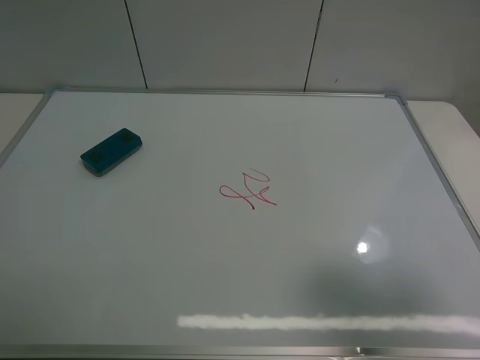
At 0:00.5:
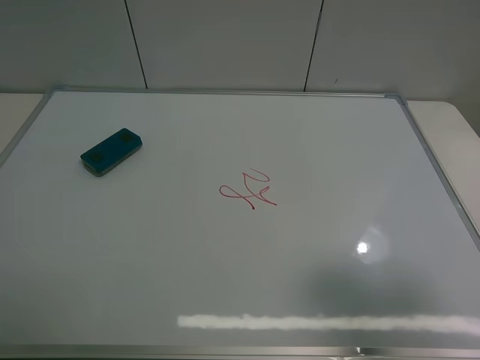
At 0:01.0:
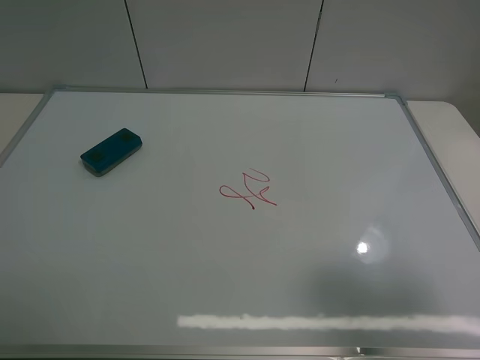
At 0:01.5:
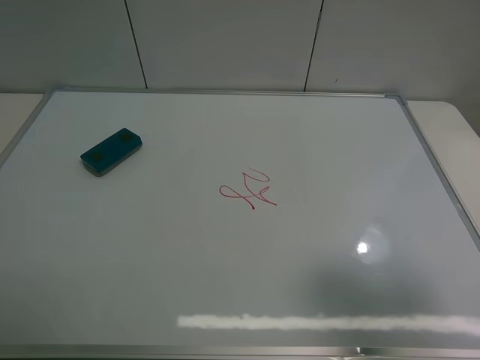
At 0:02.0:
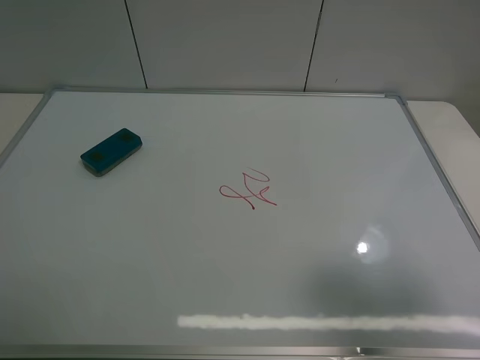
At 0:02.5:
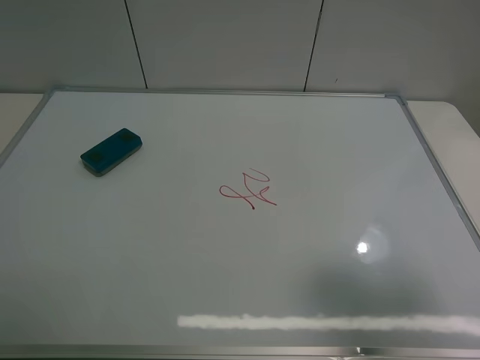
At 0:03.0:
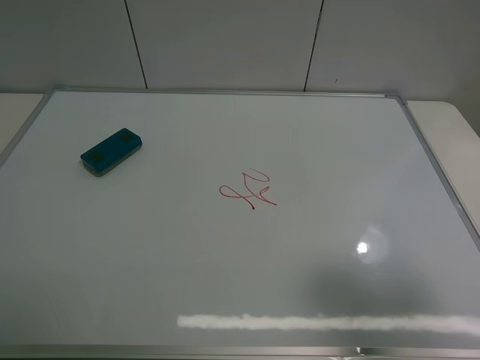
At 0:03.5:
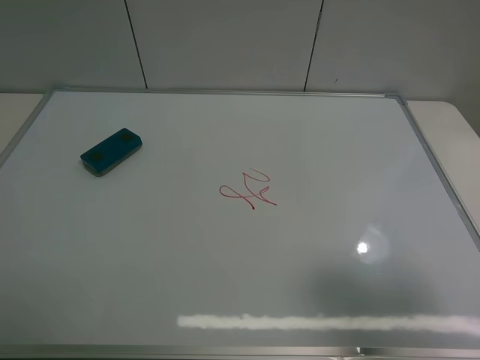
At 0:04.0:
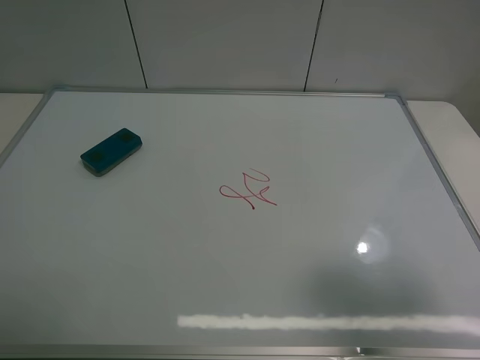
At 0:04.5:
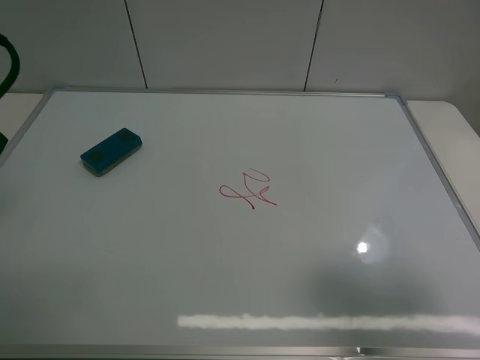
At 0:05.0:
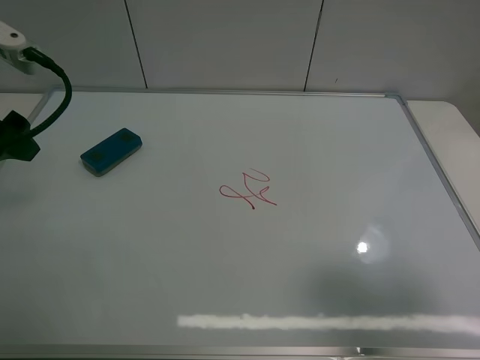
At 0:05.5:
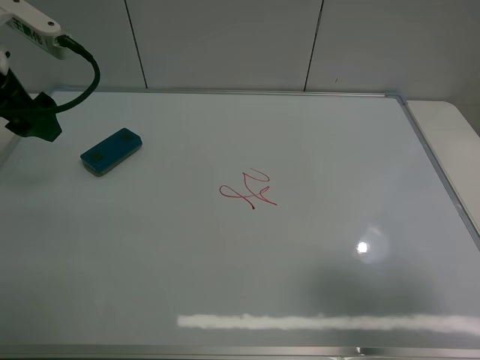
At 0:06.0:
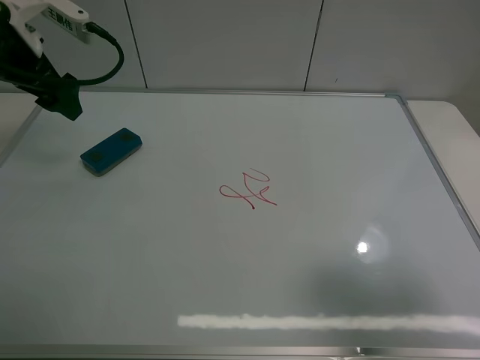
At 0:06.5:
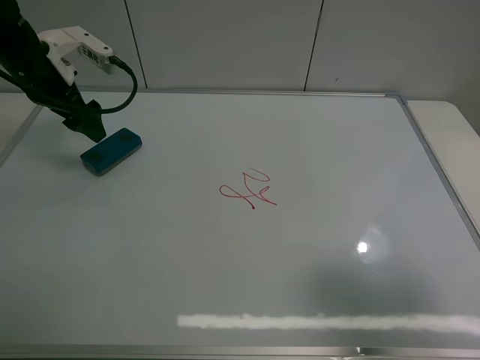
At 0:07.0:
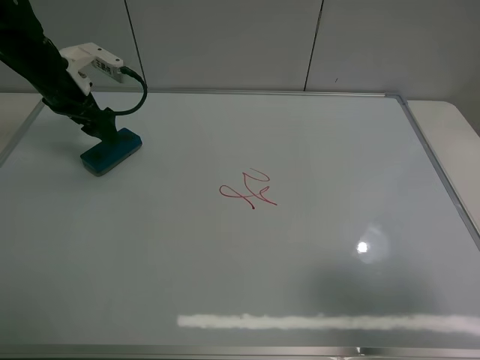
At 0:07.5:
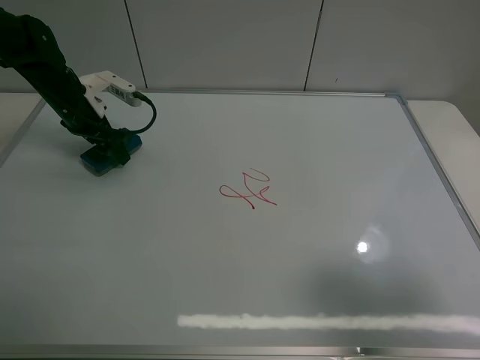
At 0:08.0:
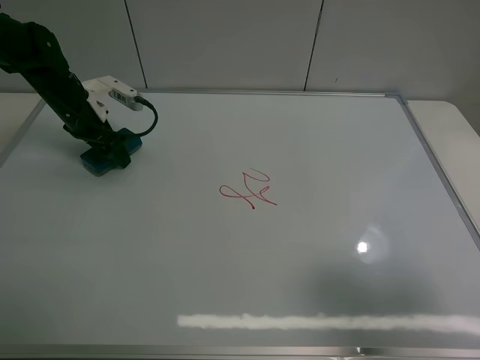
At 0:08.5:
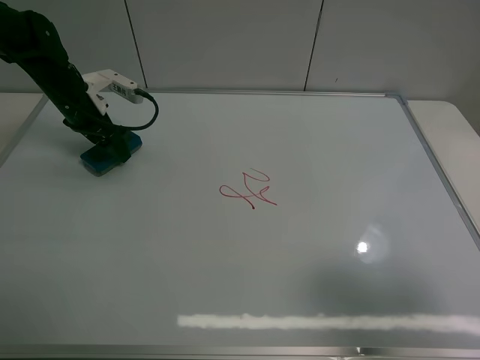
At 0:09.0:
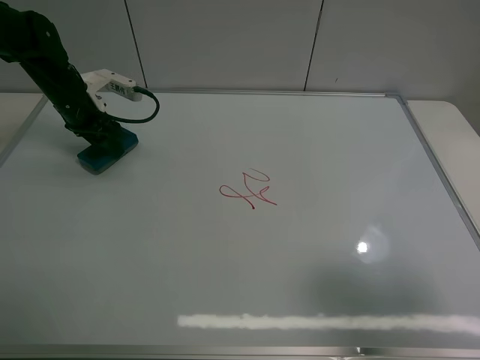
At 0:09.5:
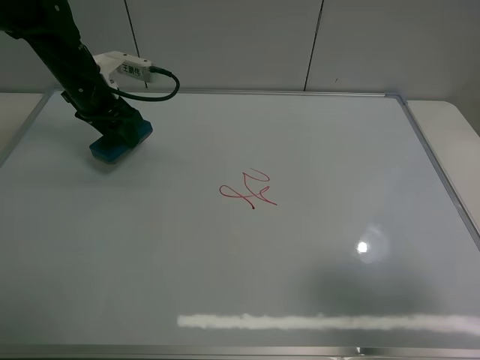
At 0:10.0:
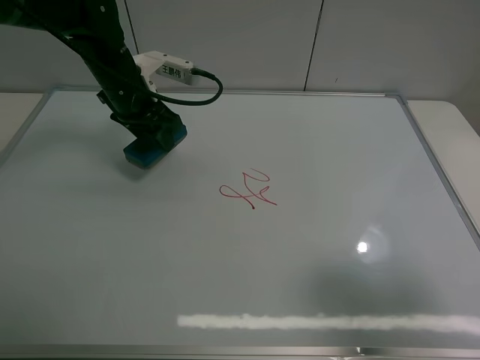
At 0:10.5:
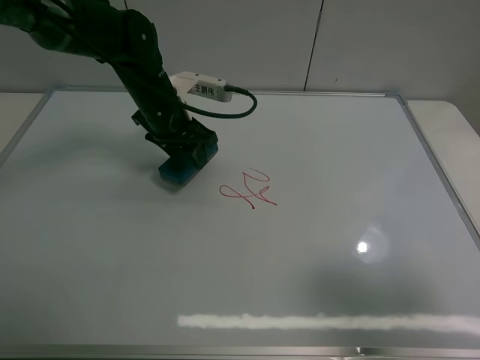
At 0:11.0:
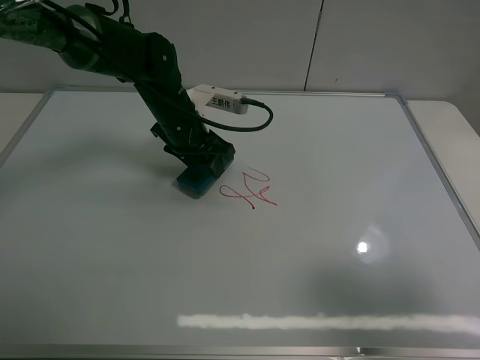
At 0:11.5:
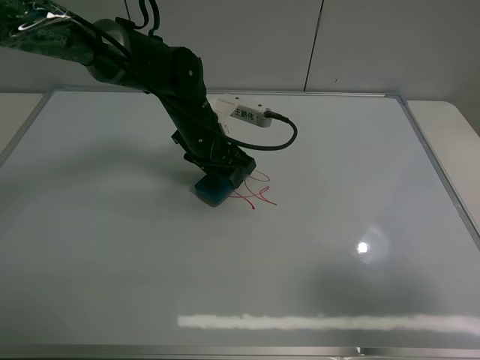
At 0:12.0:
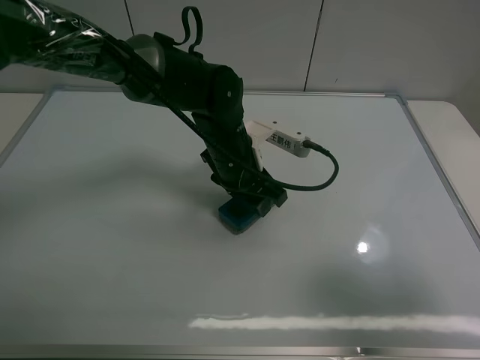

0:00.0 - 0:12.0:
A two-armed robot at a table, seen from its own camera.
Task of the whole recording: use the left claw to pick up the whiteboard eraser, wipe the notes on the whiteboard clean, and then put them back in place.
Step, 0:00.0 - 0:08.5: Grasp the eraser with the left gripper.
0:00.0 - 0:02.0: The two grippers keep their place.
0:04.0 - 0:06.0: The left gripper heads forward, covering roughly 25 cm.
0:06.0 - 0:08.0: The left gripper is displaced downward and forward by roughly 15 cm.
0:08.0 - 0:10.0: The left gripper goes approximately 15 cm to the right and upward, and closes.
0:10.0 - 0:12.0: The left gripper moves to the right, backward and downward, some 20 cm.

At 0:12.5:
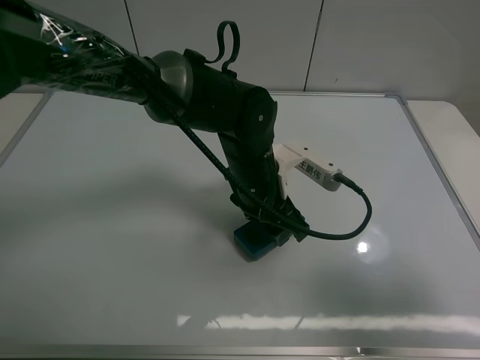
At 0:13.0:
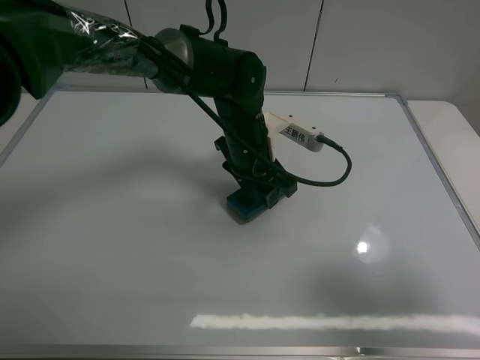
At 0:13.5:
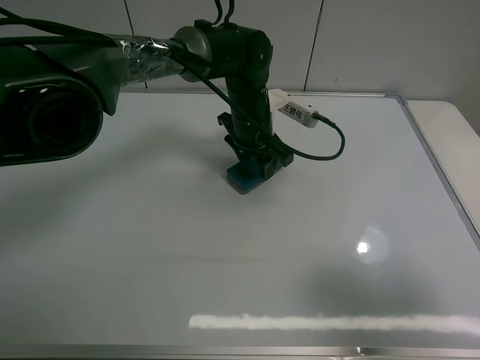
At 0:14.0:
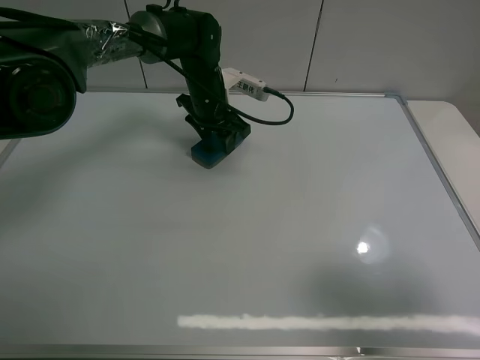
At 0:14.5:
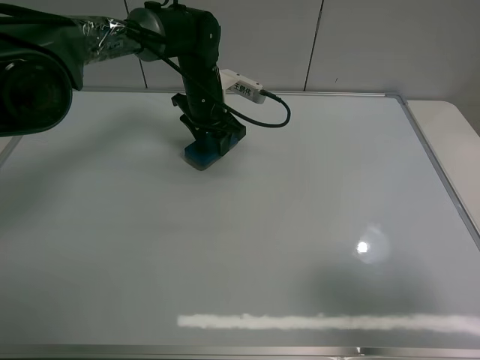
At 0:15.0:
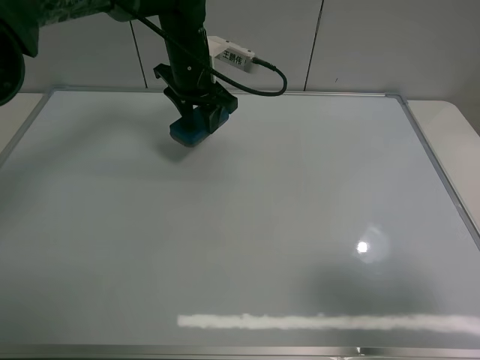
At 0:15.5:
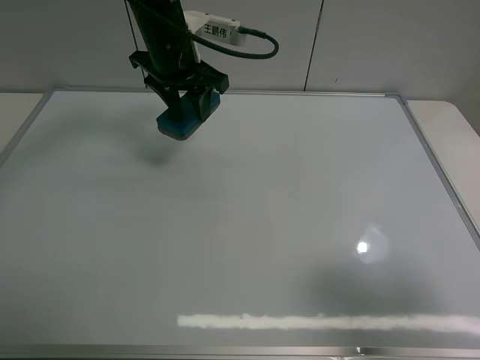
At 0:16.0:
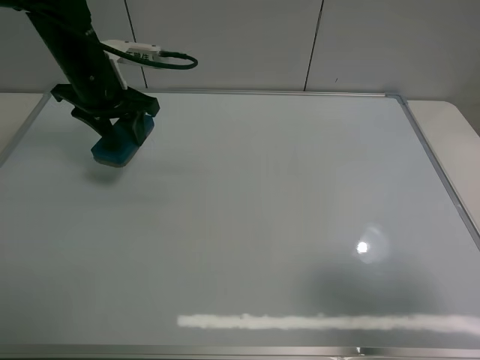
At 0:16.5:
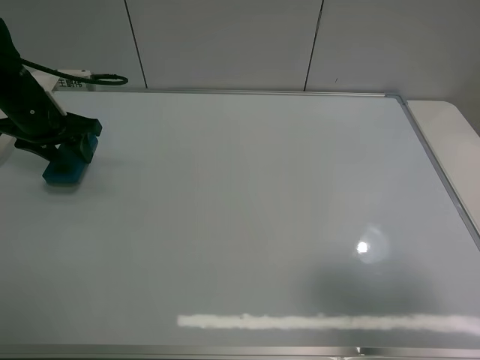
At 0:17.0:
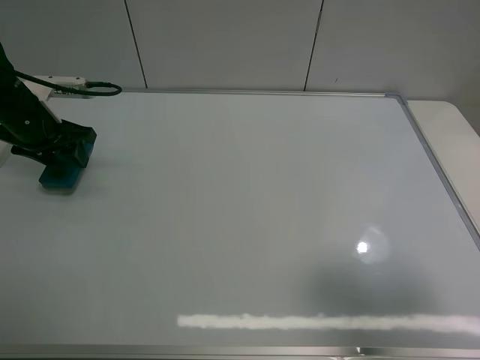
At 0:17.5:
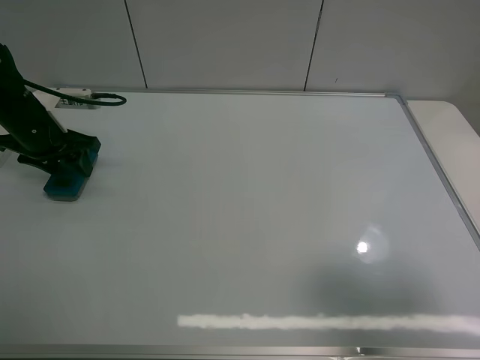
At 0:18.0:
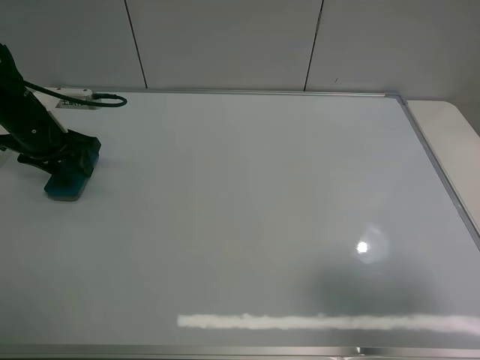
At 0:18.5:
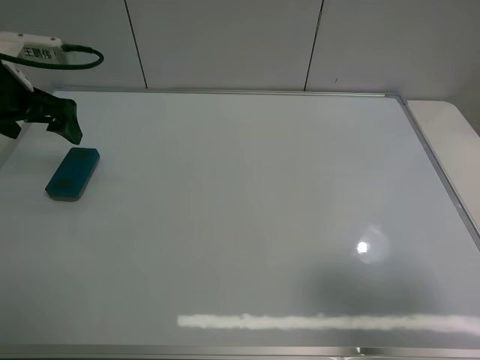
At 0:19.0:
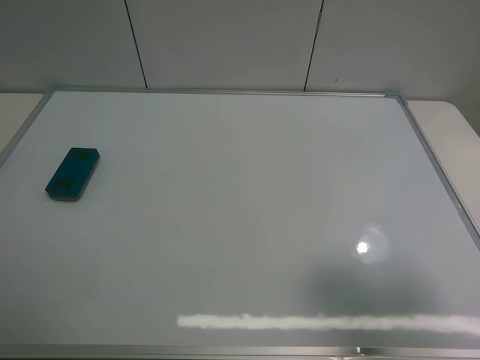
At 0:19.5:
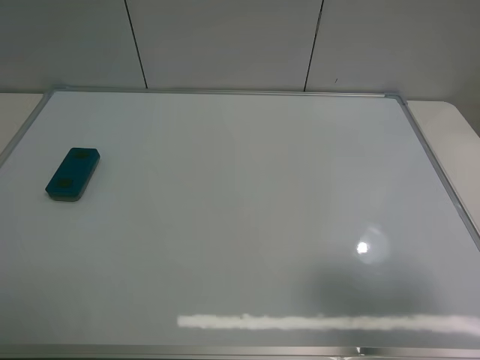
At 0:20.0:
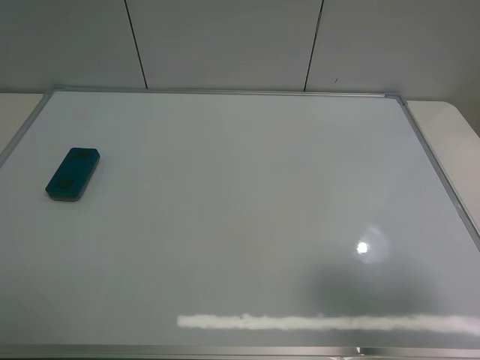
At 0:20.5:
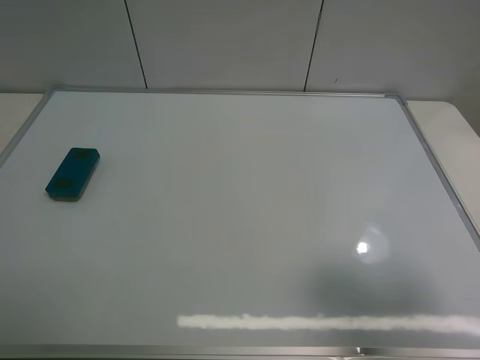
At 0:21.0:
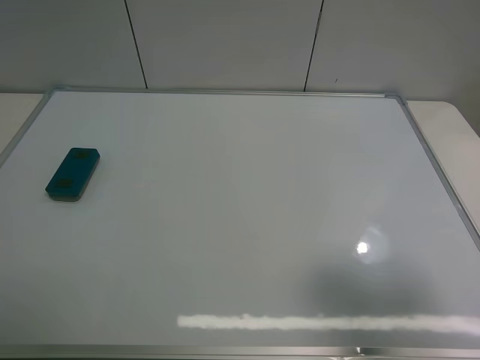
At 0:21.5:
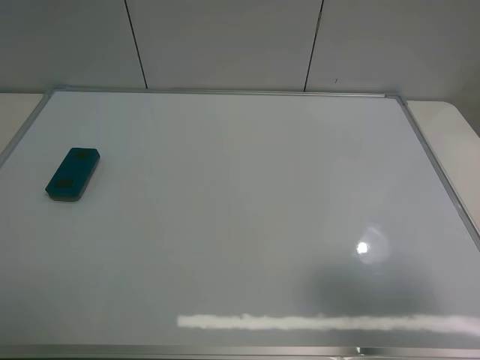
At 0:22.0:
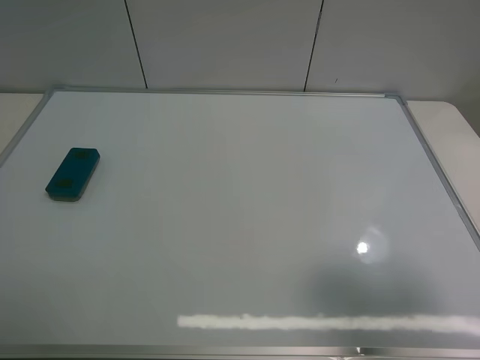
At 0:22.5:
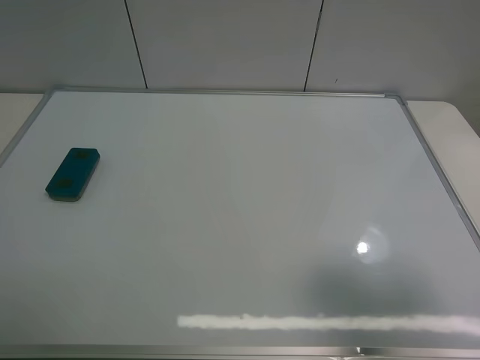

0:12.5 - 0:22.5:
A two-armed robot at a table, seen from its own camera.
Task of the whole recording: use the left claw to pick up the whiteboard eraser, wipe the notes on the whiteboard clean, and then put them back in place.
Step, 0:12.5 - 0:14.5: Grasp the eraser and wipe the blackboard with the left gripper.
Step, 0:15.0 - 0:18.0: Place the eraser with the left gripper.
0:12.5 - 0:14.5: The left gripper heads forward and to the left, covering approximately 20 cm.
0:14.5 - 0:16.5: The left gripper travels to the left by approximately 25 cm.
0:16.5 - 0:18.5: The left gripper moves upward, roughly 5 cm, and opens its fingers.
0:18.5 - 0:20.5: The left gripper travels backward by roughly 35 cm.
0:20.5 - 0:22.5: The two grippers keep their place.
